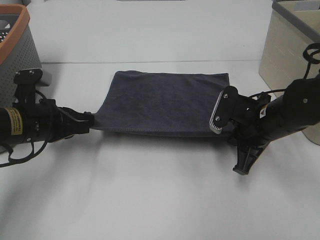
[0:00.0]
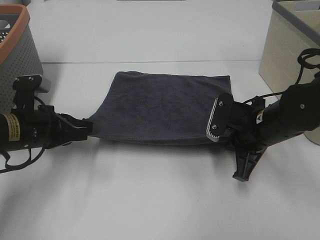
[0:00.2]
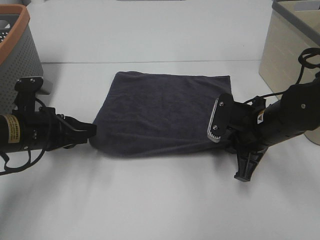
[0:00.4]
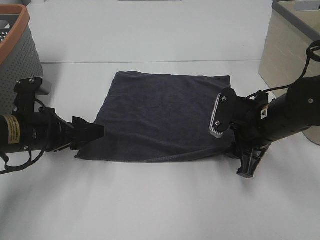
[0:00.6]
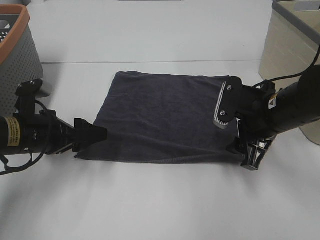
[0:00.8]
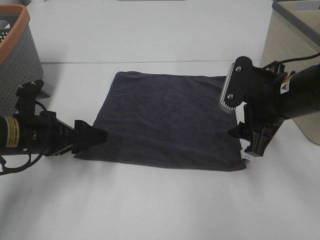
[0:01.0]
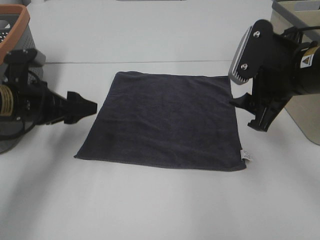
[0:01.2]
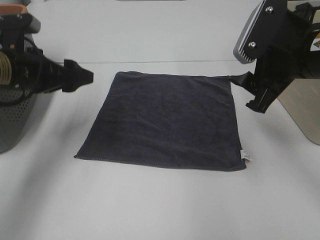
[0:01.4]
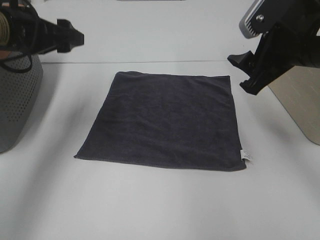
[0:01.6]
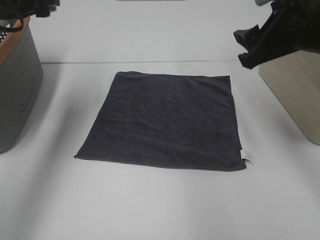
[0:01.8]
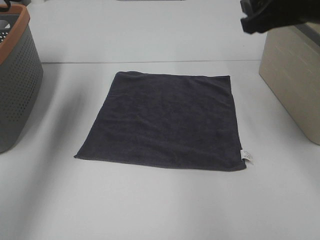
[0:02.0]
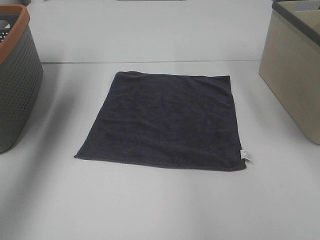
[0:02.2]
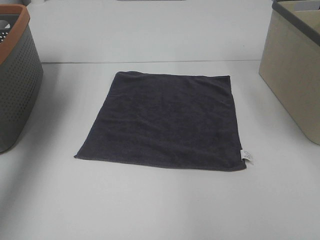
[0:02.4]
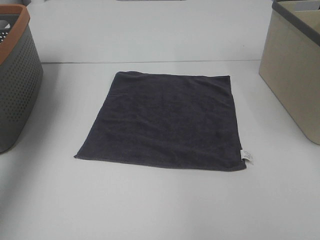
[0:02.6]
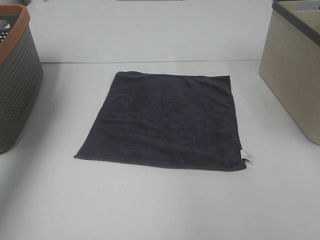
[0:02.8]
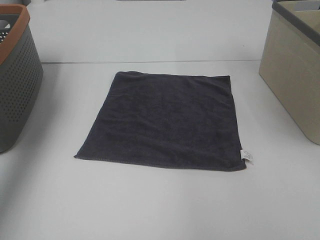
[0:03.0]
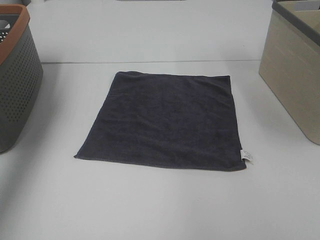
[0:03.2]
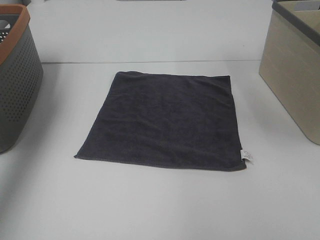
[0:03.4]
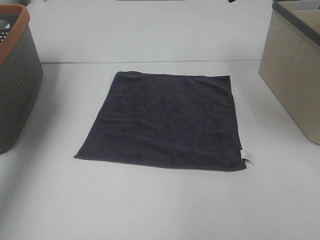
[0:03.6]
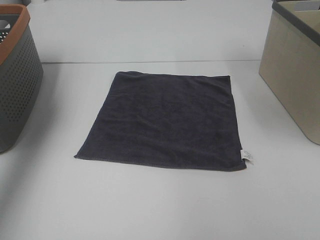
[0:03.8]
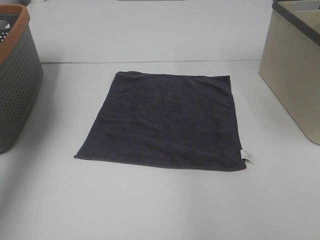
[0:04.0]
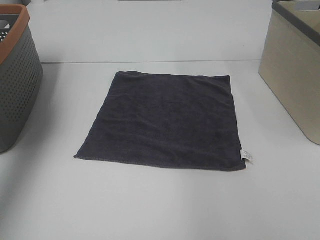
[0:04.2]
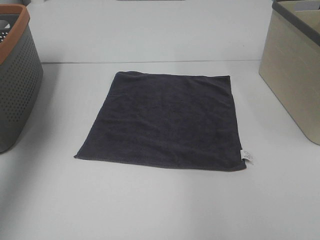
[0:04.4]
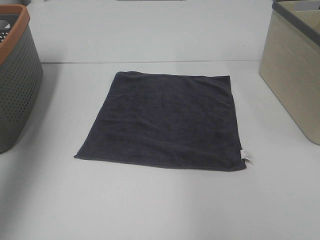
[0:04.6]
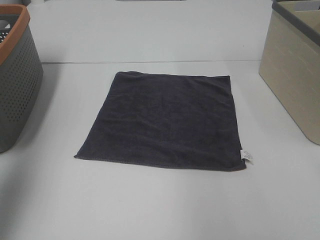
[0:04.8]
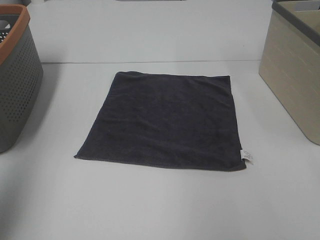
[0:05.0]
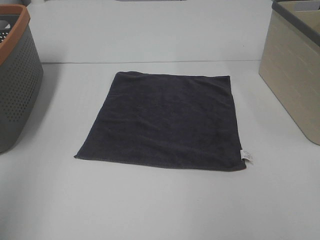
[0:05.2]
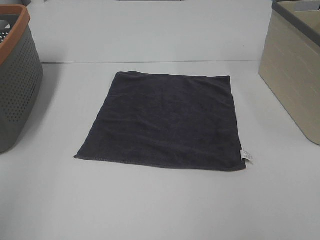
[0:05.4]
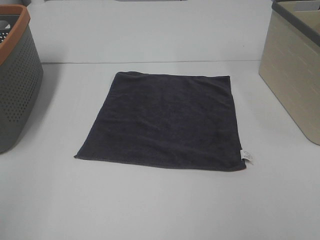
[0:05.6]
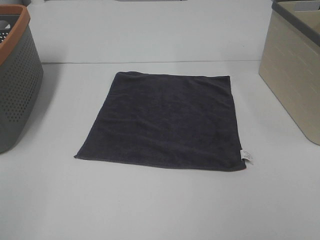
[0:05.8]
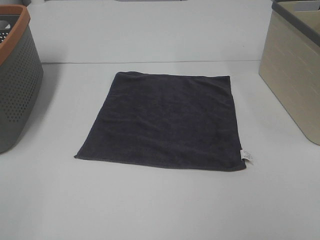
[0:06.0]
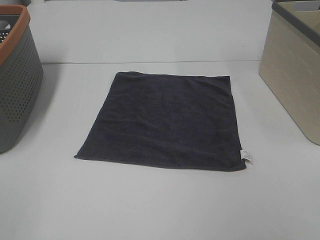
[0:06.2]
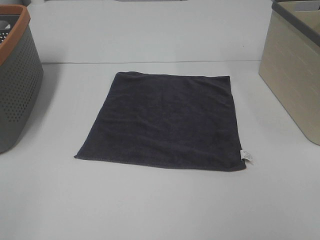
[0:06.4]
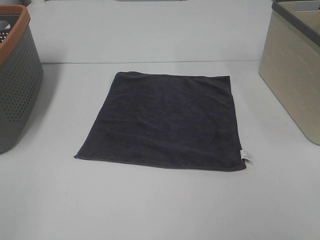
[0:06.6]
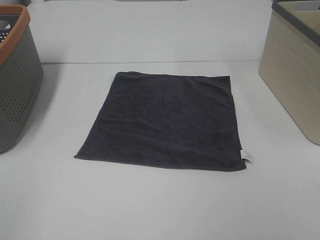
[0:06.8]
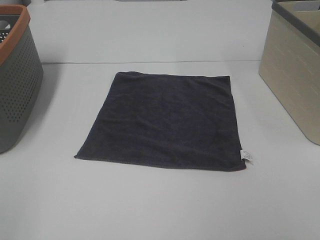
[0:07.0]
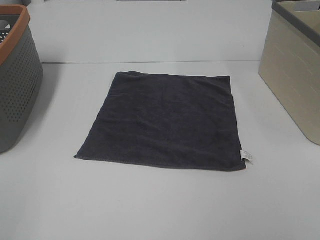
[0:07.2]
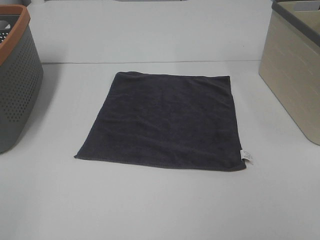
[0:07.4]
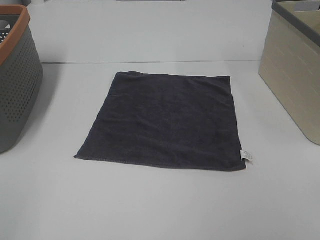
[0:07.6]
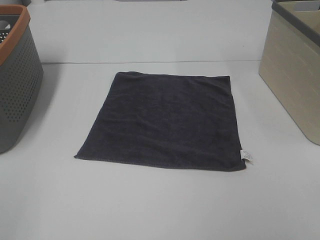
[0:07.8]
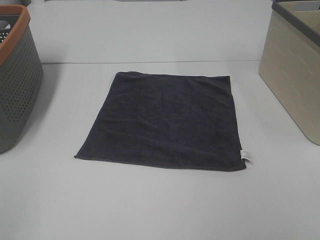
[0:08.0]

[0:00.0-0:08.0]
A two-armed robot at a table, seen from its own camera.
Task of the whole recording: Remove the towel and place it.
0:00.0 to 0:01.6: The left gripper is displaced upward and forward by about 15 cm, and opens its fingers. The right gripper shifts approximately 15 cm upward, and opens its fingers.
0:01.6 to 0:03.2: The left gripper travels upward and to the left by approximately 15 cm. The right gripper is displaced upward by approximately 15 cm.
0:03.2 to 0:04.8: The left gripper moves backward, about 20 cm.
0:04.8 to 0:06.4: The left gripper travels backward and downward by approximately 20 cm.
0:06.4 to 0:08.0: The two grippers keep their place.
